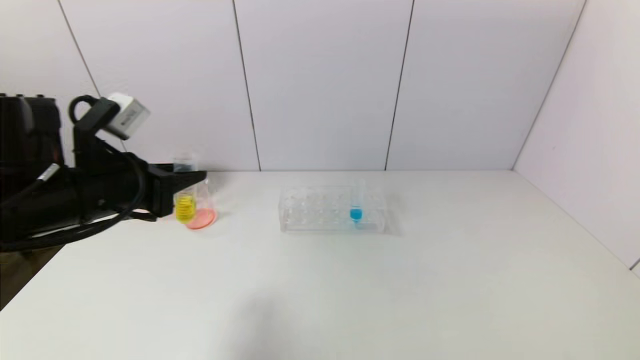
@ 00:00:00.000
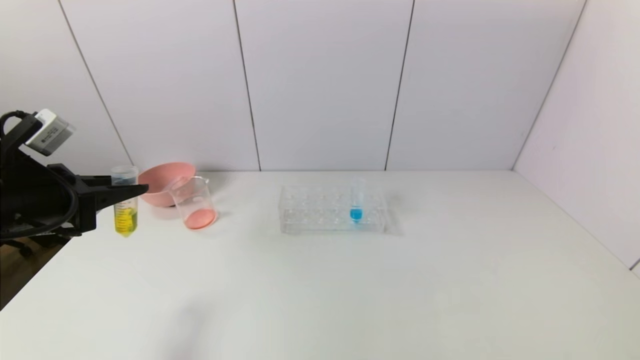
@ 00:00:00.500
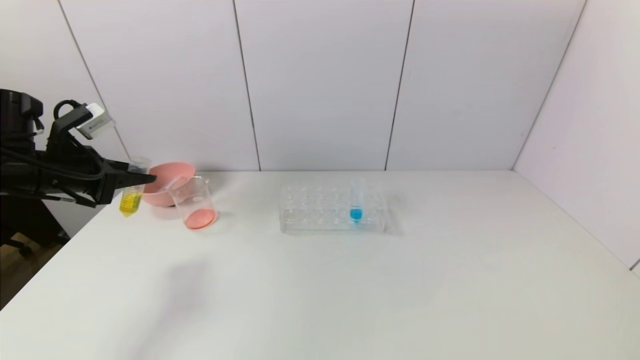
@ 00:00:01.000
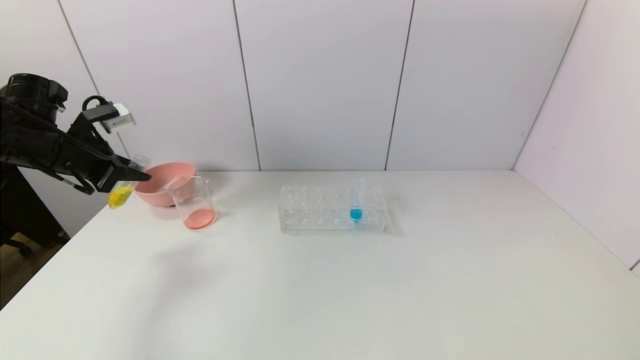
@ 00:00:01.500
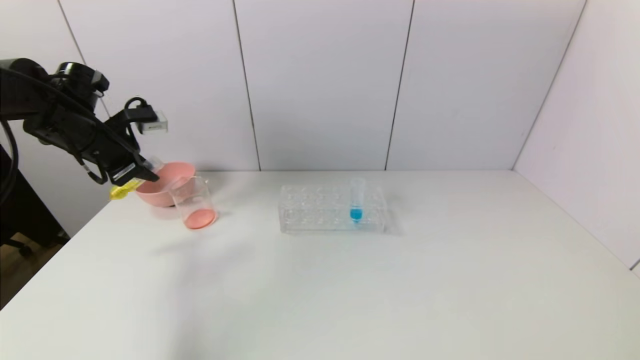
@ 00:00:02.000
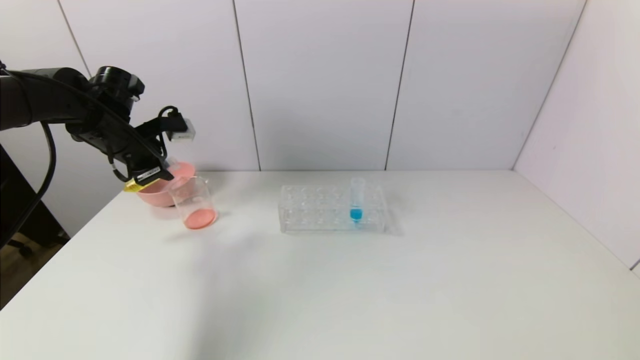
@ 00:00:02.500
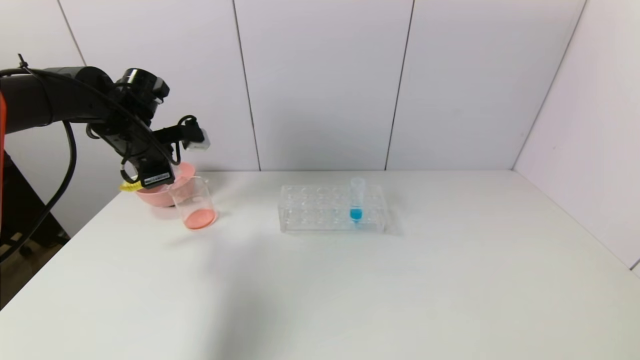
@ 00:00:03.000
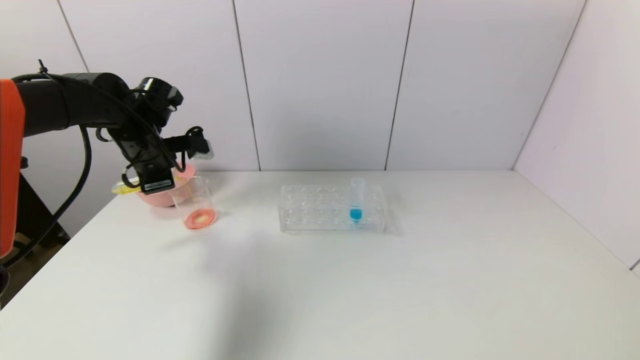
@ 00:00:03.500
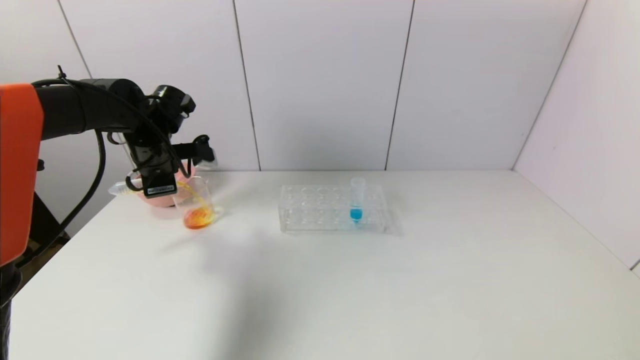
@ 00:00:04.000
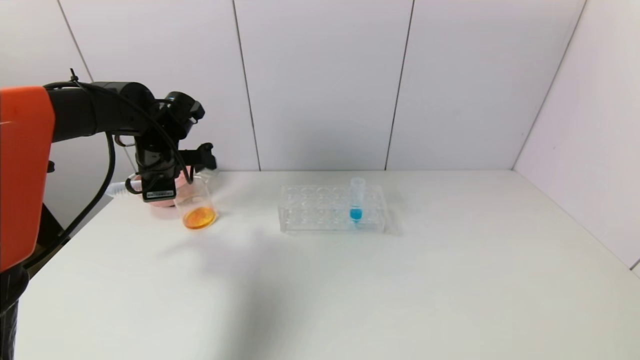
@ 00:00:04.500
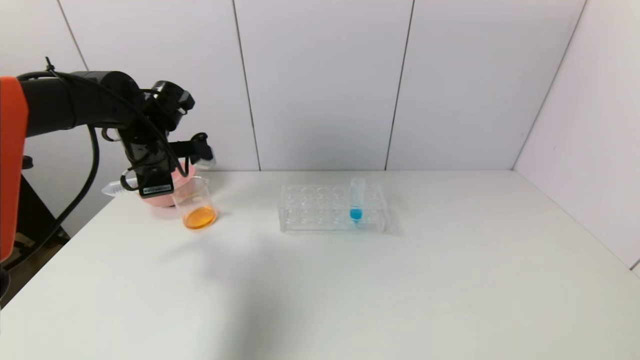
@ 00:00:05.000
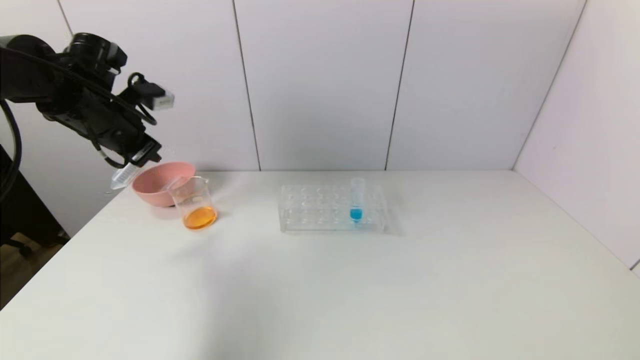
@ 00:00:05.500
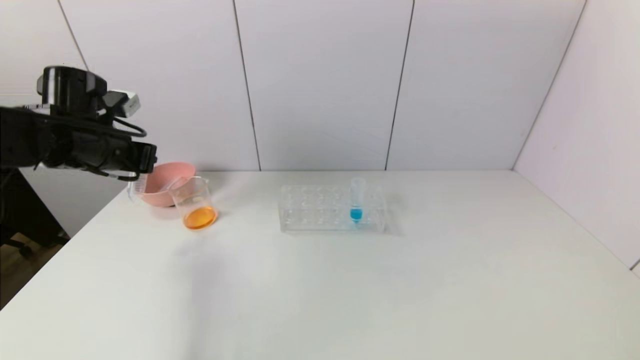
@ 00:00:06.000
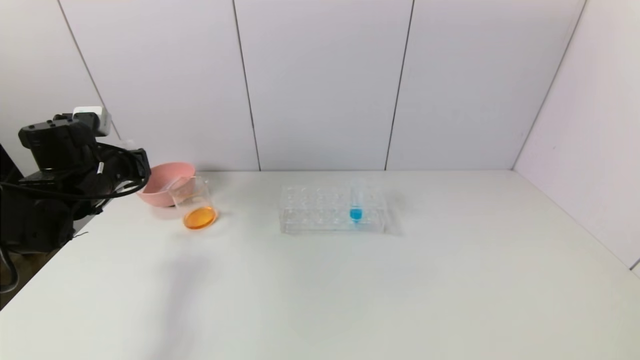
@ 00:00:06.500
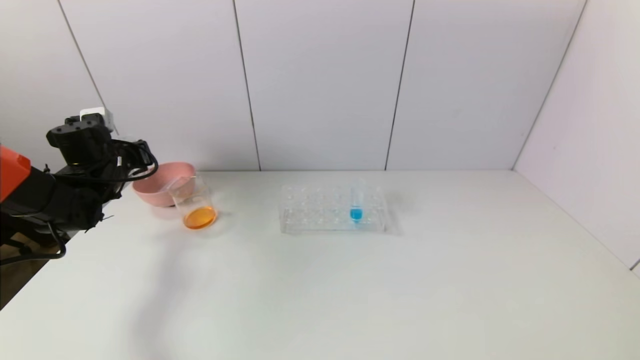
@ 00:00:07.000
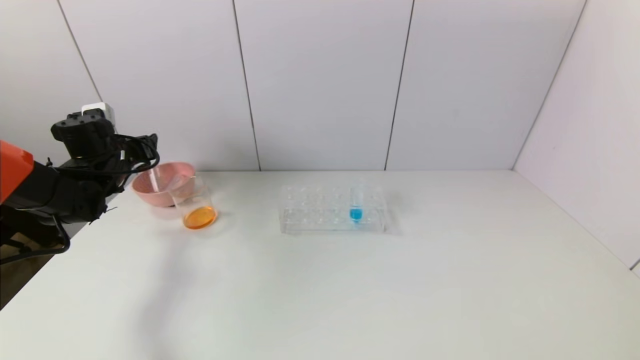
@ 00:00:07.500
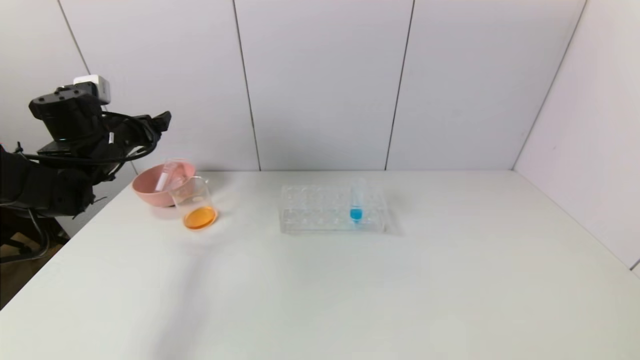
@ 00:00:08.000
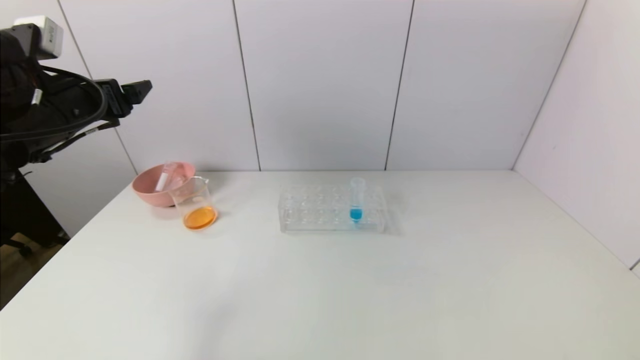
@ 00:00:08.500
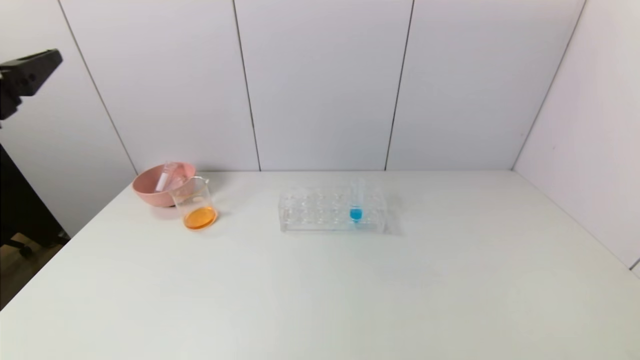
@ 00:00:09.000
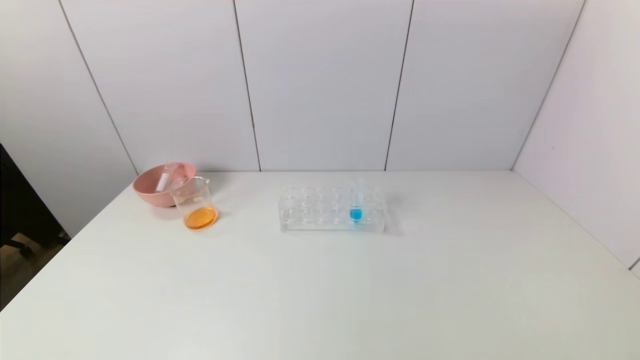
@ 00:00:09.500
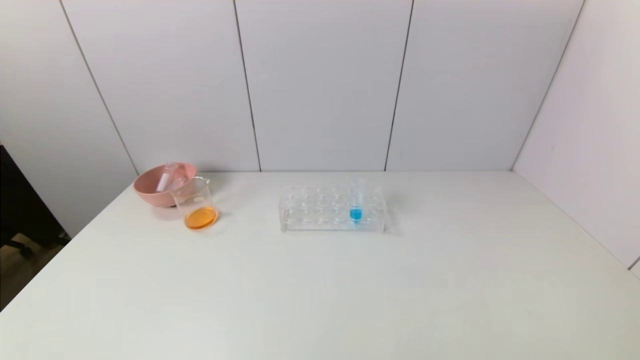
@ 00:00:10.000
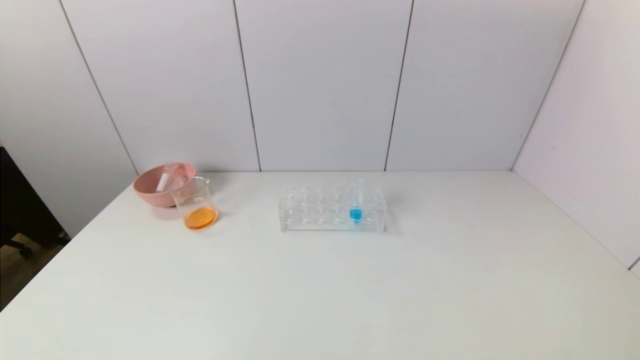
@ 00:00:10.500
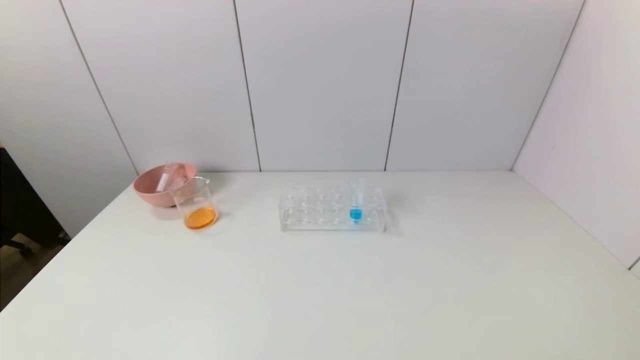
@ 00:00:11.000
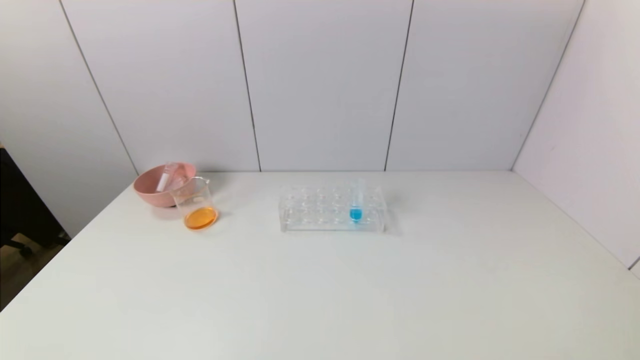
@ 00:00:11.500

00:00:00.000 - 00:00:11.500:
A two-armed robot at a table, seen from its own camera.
Task of the whole recording: pick up the test tube with yellow pigment and the test tube with red pigment by grippers and pour them into the beaker.
Step, 00:00:00.000 - 00:00:04.500: Pour the yellow reagent into the graduated cylinder with the left gripper.
Step, 00:00:05.000 - 00:00:07.500: Place the test tube into the pink bowl with the left gripper.
00:00:00.000 - 00:00:02.000: The left gripper travels forward and to the left by some 20 cm.
00:00:02.000 - 00:00:04.000: The left gripper travels to the right by approximately 10 cm.
00:00:04.000 - 00:00:06.000: The left gripper shifts about 10 cm backward and to the left.
00:00:06.000 - 00:00:07.500: The left gripper heads forward and downward, covering roughly 10 cm, and opens up.
00:00:07.500 - 00:00:09.500: The left gripper shifts about 40 cm backward.
